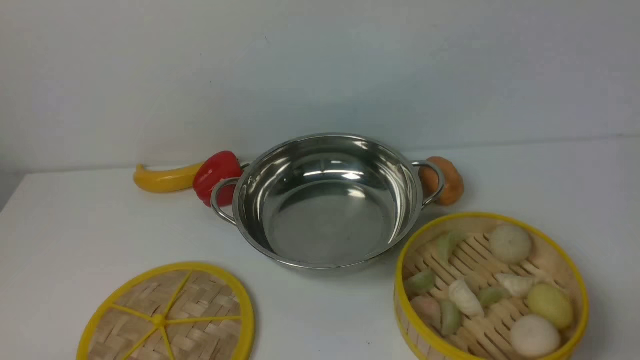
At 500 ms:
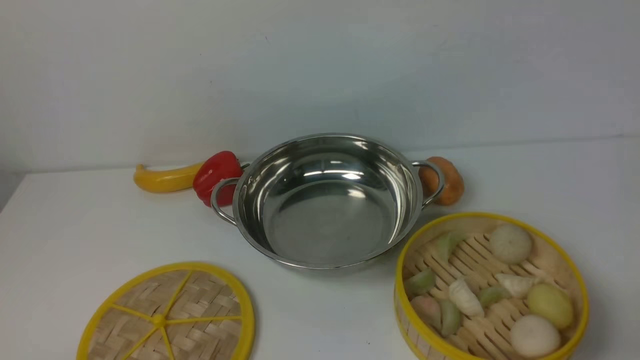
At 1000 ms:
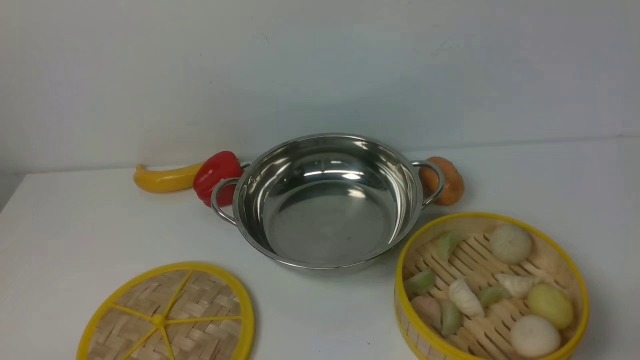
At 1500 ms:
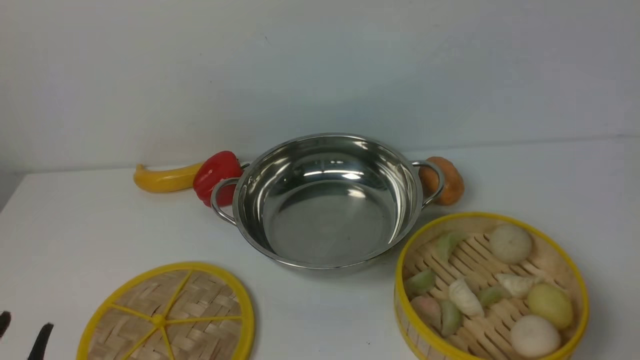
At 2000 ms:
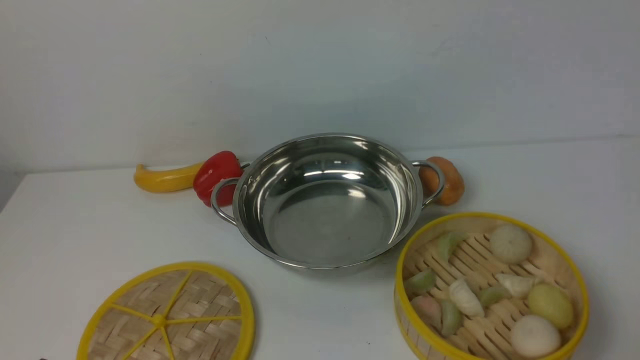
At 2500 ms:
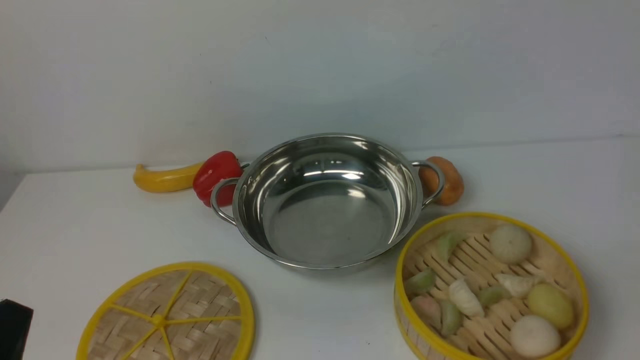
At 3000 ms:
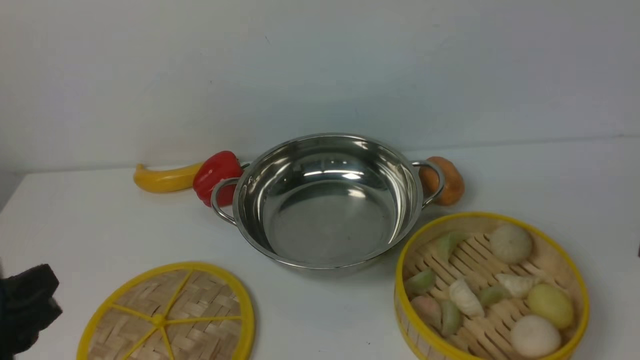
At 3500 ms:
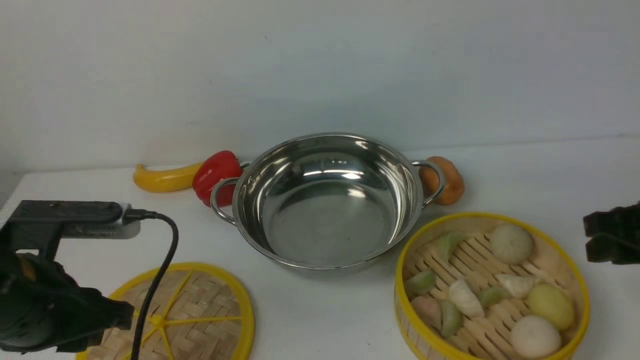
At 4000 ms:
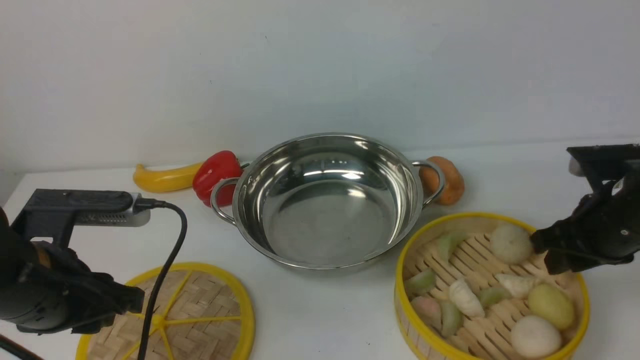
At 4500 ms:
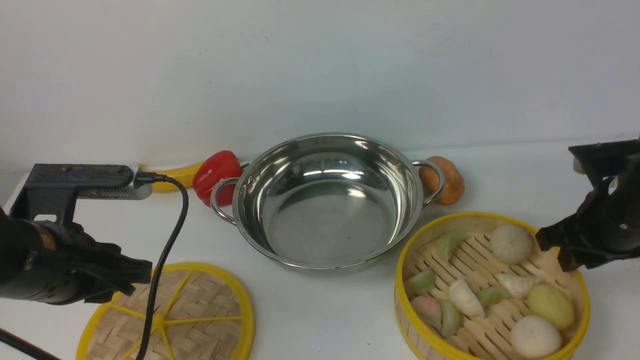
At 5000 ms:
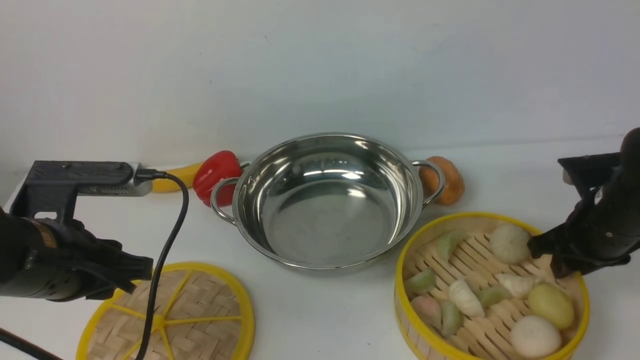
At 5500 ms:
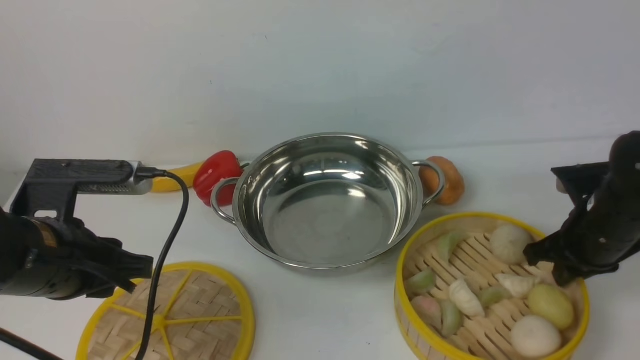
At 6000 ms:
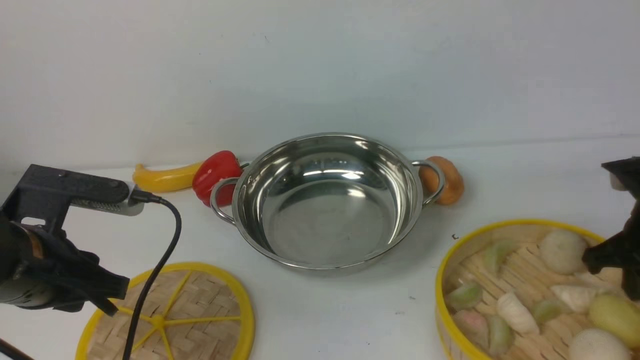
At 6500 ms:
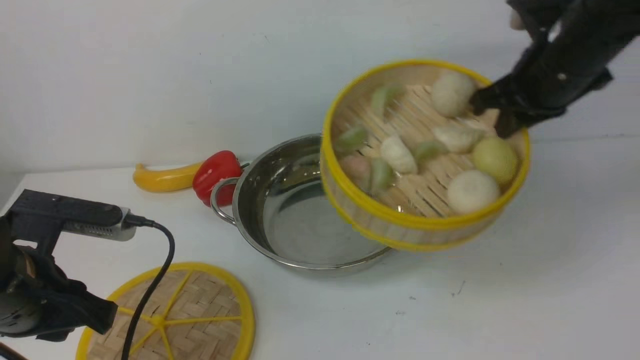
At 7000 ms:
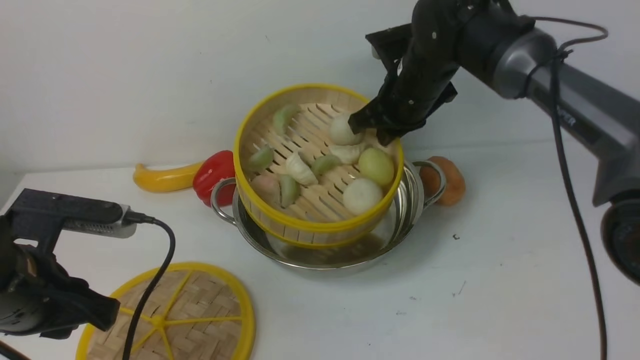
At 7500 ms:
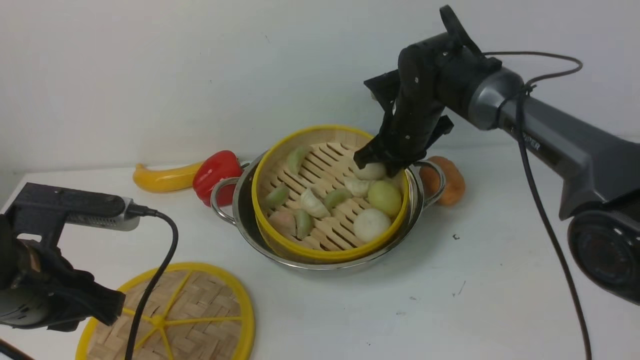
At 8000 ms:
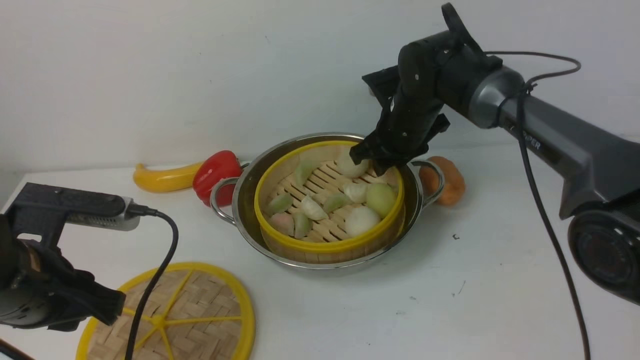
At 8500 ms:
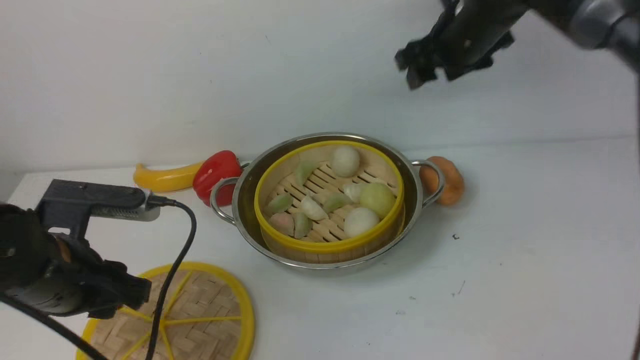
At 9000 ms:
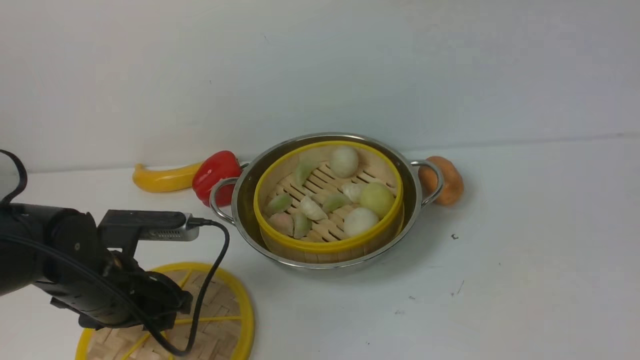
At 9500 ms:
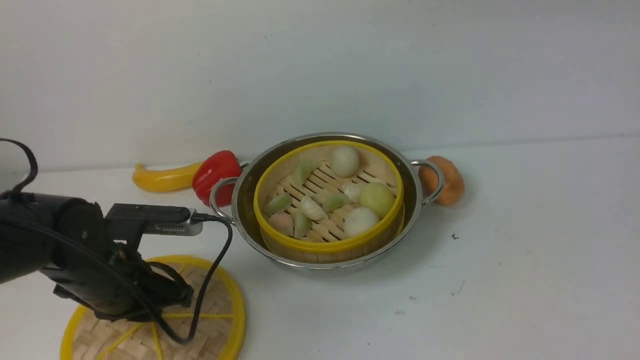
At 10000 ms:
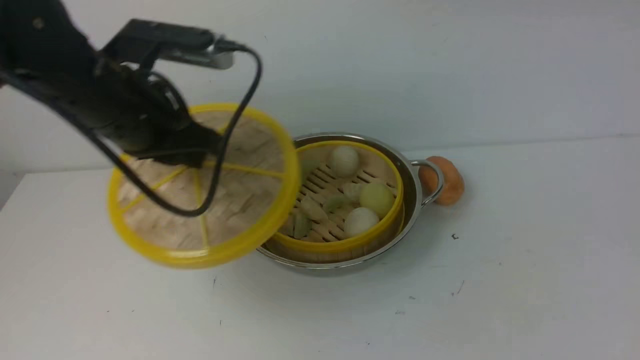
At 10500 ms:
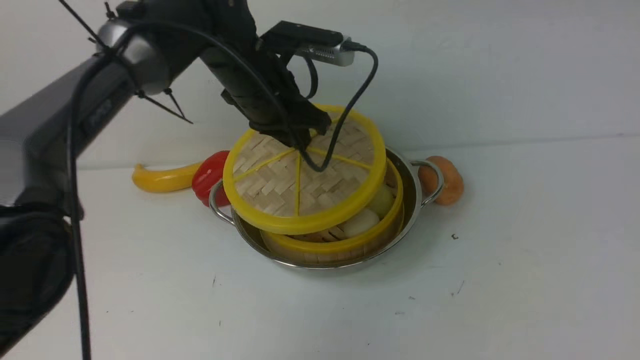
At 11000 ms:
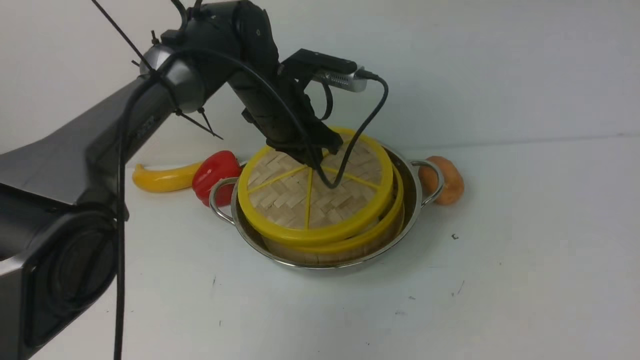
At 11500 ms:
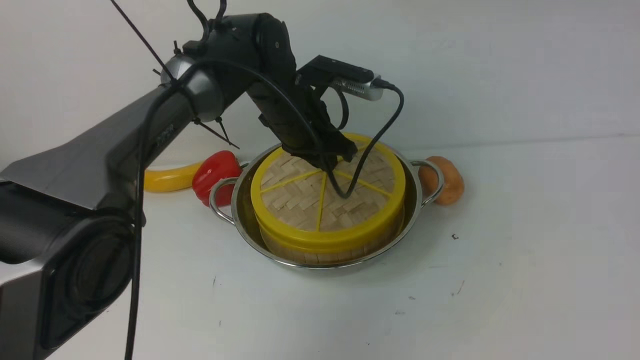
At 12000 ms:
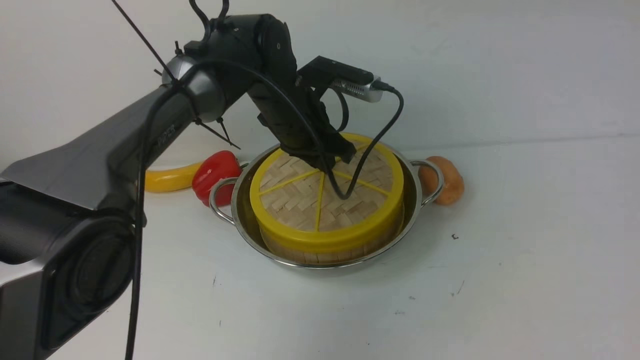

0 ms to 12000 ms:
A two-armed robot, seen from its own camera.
Task of the whole recording: place the steamer in the pot on the white table, and put the lid on the steamer.
Step, 0 ms to 6000 ms: use the right arm to lift the steamer closest to it.
Step, 6500 ms to 8000 ms: use the right arm to put the steamer into the iron steamer pot in the middle.
Step, 8500 ms to 9500 ms: use the left arm to lift the lid of the steamer.
2000 ms to 4000 ms: The grippers both shift forward by roughly 20 cm.
4000 ms to 6000 ms: The right gripper closes up.
6000 ms to 8000 ms: The right gripper moves to the left and forward, approximately 25 cm, and opens up.
8000 ms to 10000 ms: The left gripper heads forward, to the right and upward, covering approximately 15 cm, and opens, then closes again, while the right gripper goes roughly 40 cm upward, backward and to the right, and opens its fingers.
10000 ms to 12000 ms: The left gripper goes roughly 20 cm to the right, forward and downward.

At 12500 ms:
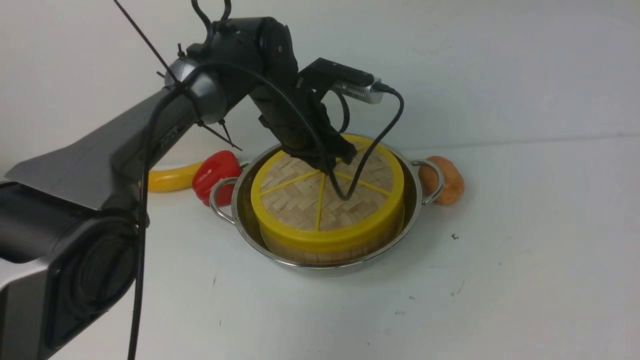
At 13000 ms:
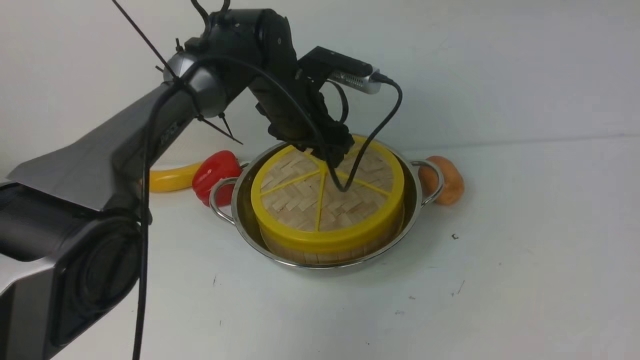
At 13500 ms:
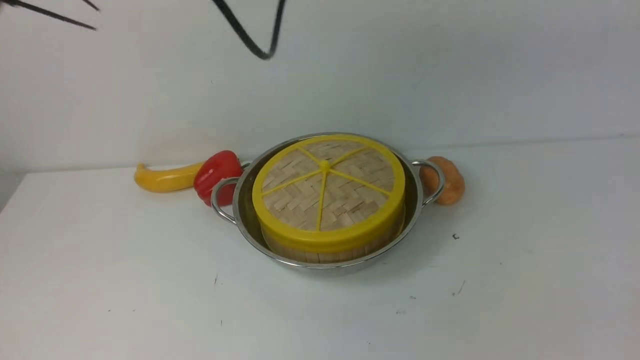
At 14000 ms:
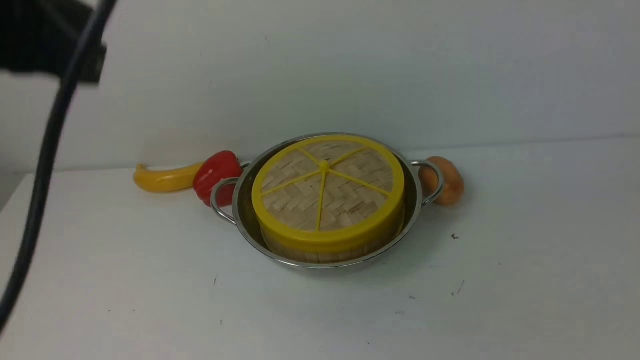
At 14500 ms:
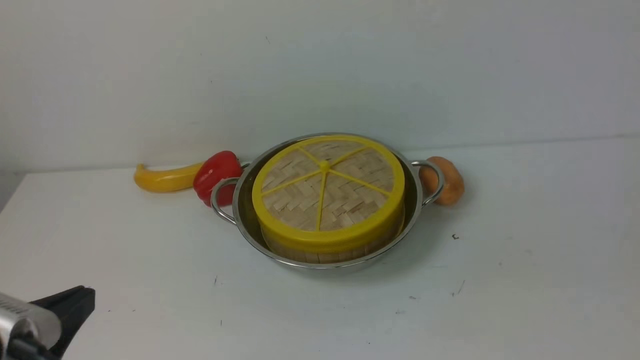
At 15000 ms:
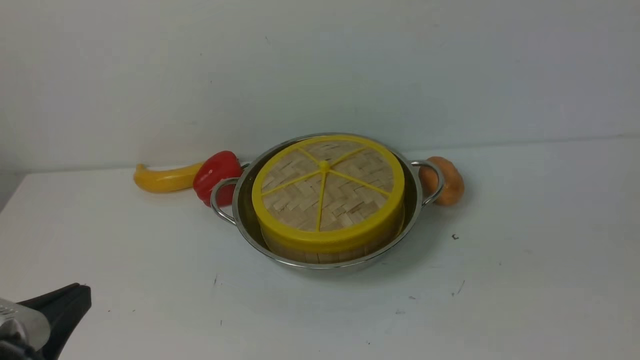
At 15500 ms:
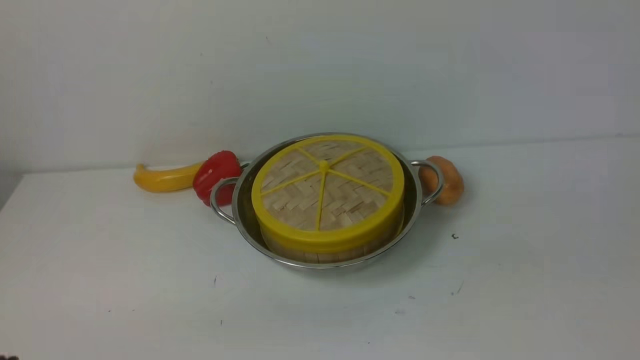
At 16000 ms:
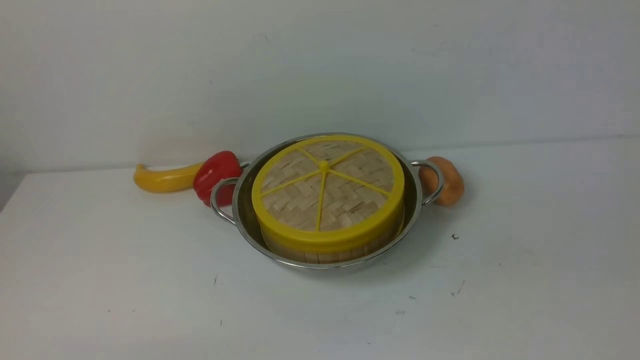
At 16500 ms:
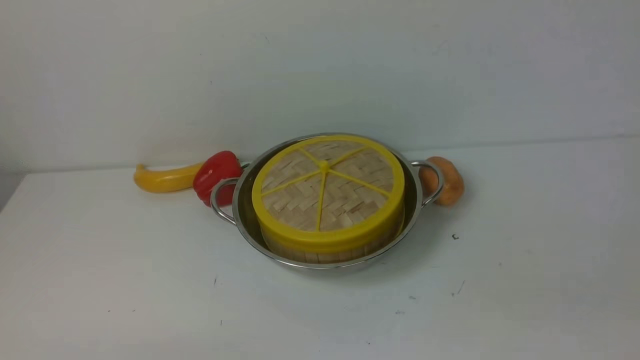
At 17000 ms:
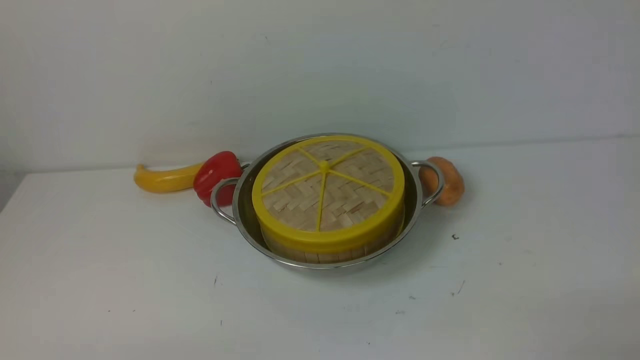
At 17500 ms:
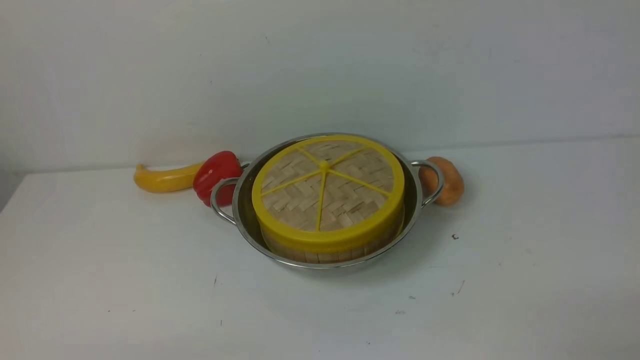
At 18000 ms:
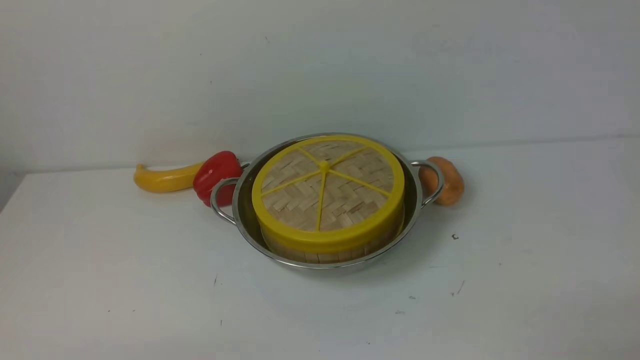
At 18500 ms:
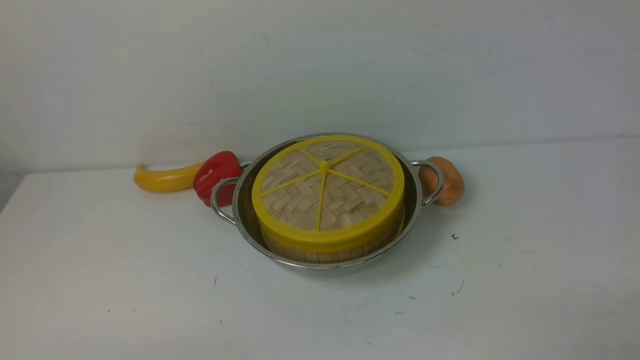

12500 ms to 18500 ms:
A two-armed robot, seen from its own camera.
Task of the whole recording: place the steamer in the pot on the white table, and put the lid on the steamer.
12500 ms to 14500 ms: The left gripper heads backward and to the left, covering about 40 cm, and closes; the right gripper goes roughly 30 cm downward and backward, and closes its fingers.
14500 ms to 16500 ms: The left gripper is displaced downward by roughly 10 cm.

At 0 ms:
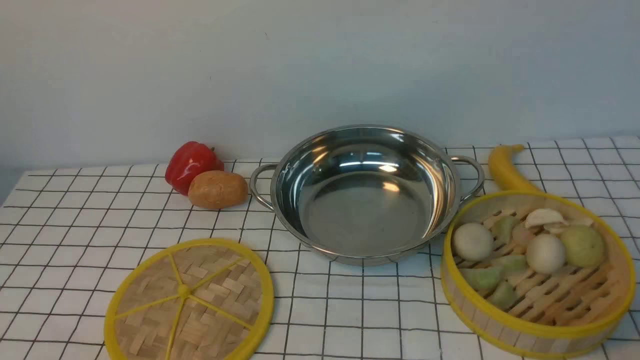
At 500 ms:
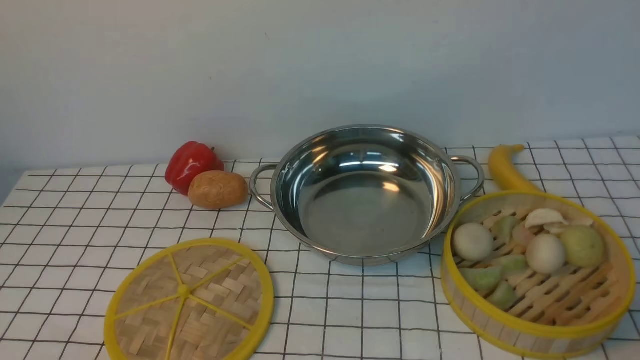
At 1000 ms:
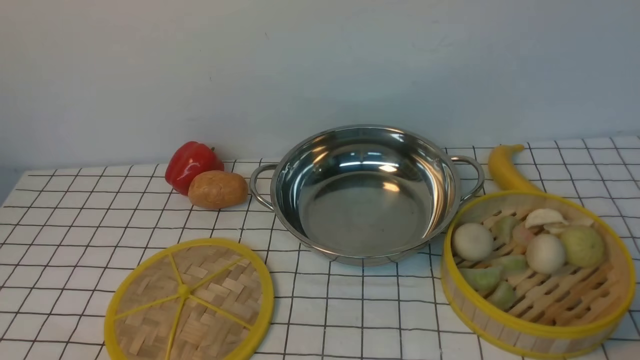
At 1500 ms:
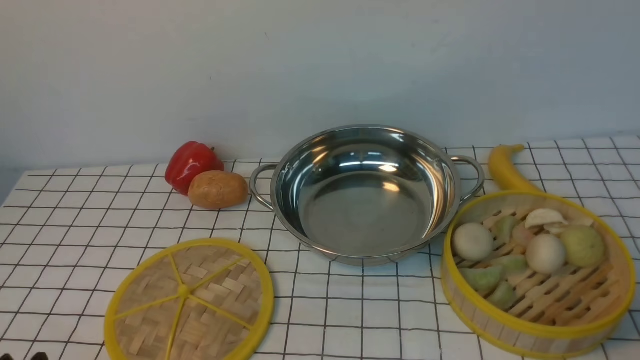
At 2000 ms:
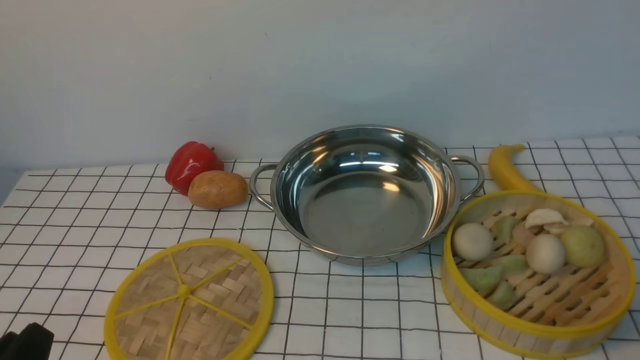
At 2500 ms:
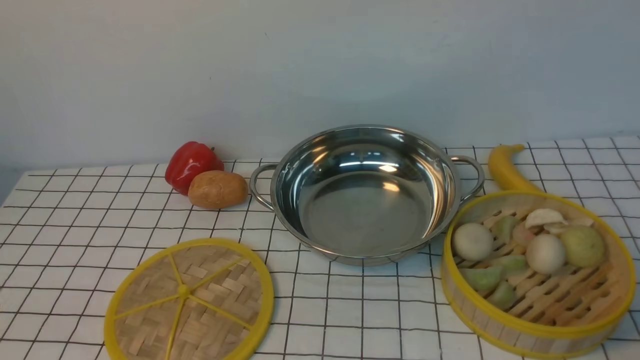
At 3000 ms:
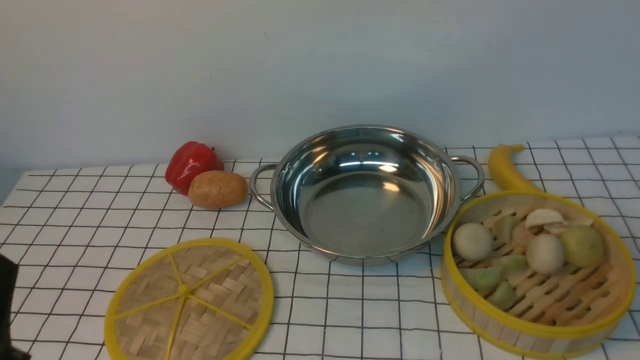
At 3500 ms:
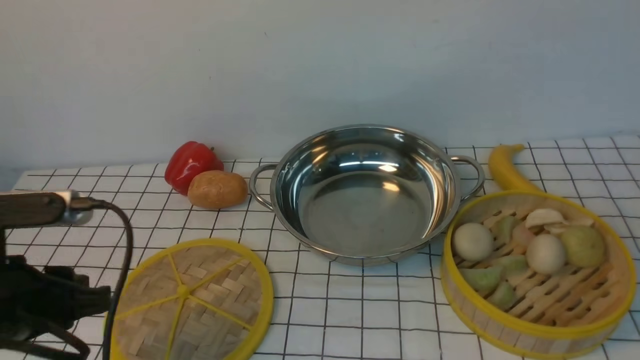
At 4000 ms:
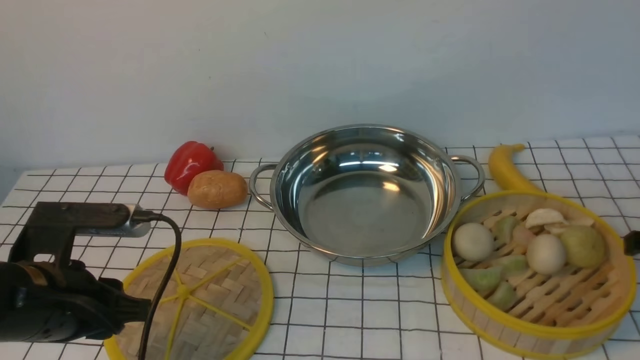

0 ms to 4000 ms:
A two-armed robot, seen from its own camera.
Task of the whole recording: place the steamer in the pot on the white tablecloth, and put the lid on the steamer.
2000 ms to 4000 ms: The left gripper goes about 15 cm forward.
